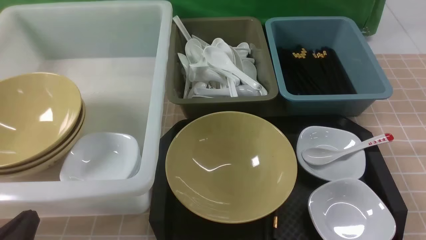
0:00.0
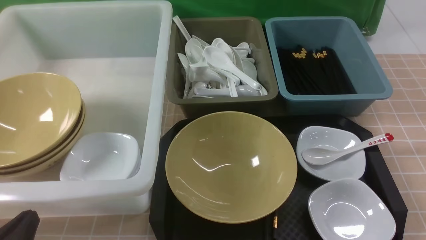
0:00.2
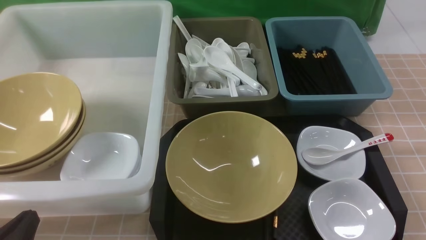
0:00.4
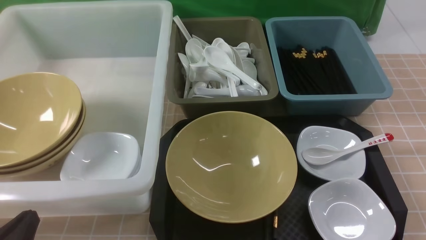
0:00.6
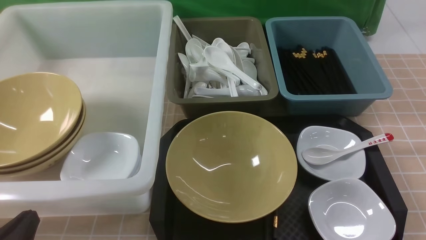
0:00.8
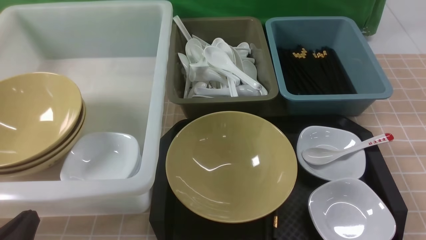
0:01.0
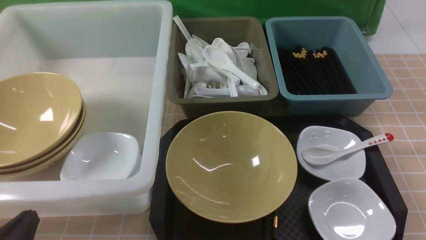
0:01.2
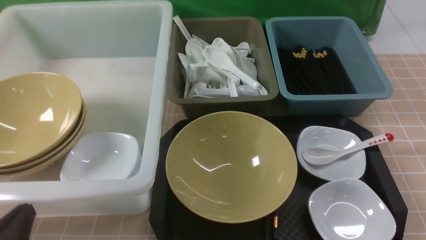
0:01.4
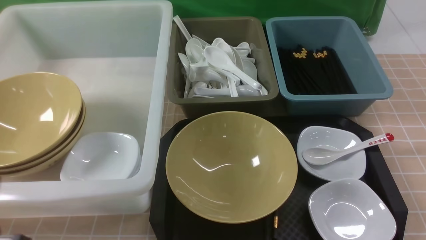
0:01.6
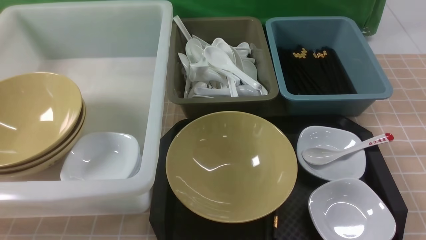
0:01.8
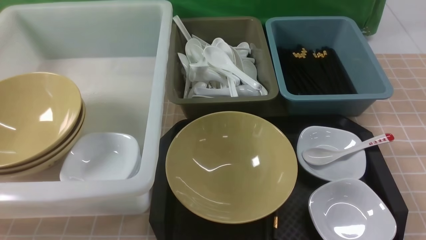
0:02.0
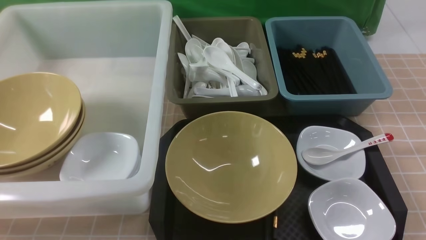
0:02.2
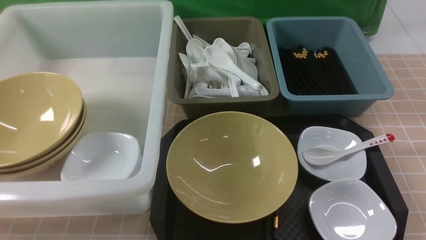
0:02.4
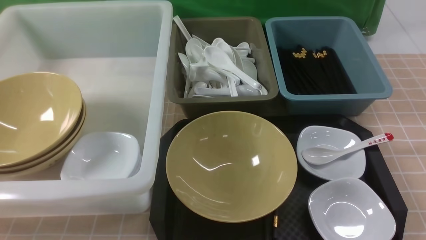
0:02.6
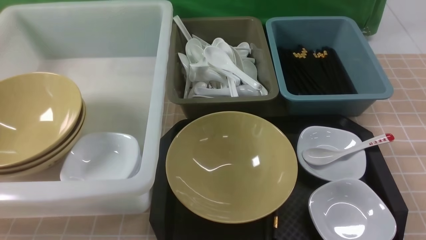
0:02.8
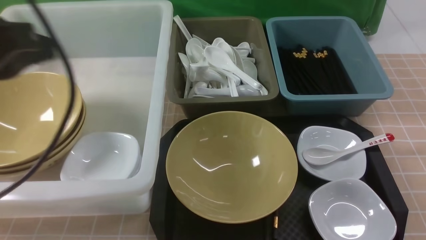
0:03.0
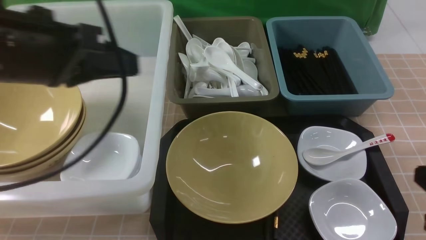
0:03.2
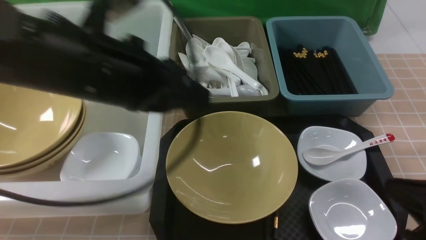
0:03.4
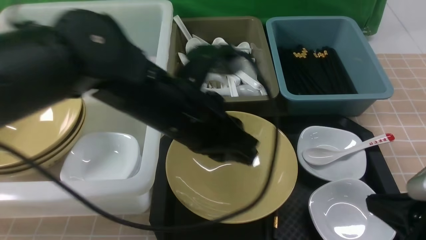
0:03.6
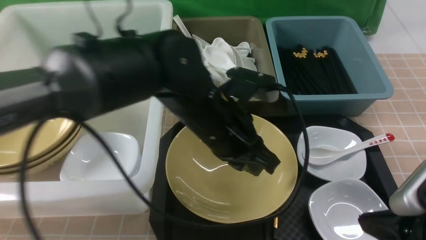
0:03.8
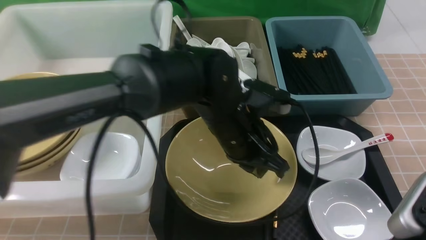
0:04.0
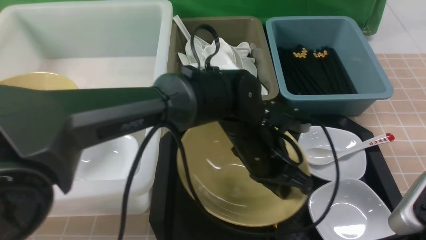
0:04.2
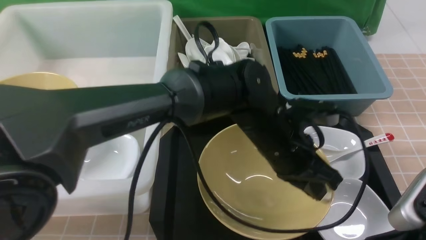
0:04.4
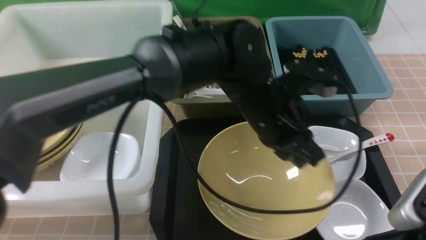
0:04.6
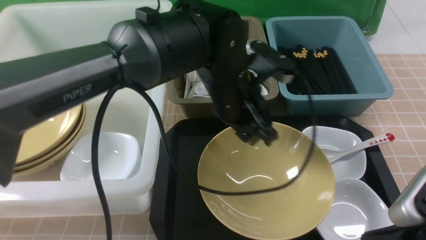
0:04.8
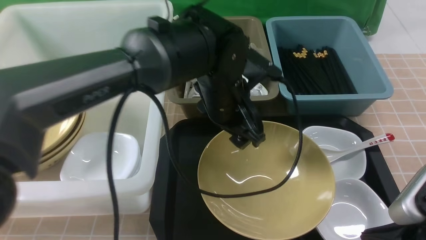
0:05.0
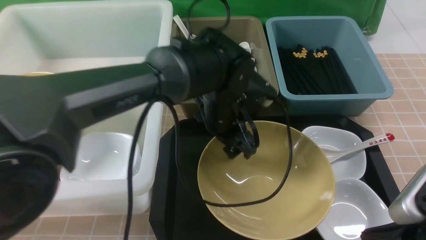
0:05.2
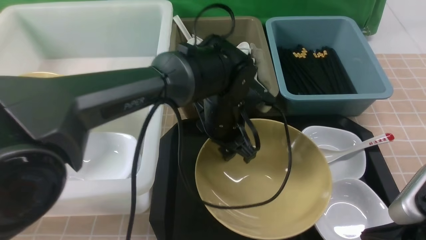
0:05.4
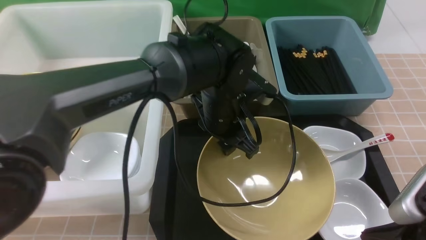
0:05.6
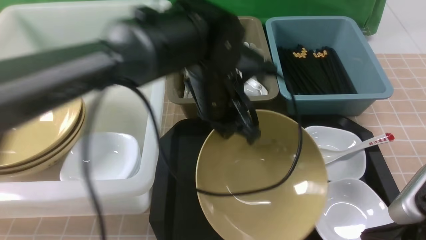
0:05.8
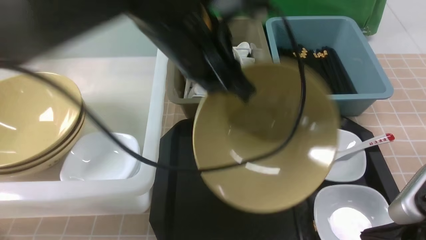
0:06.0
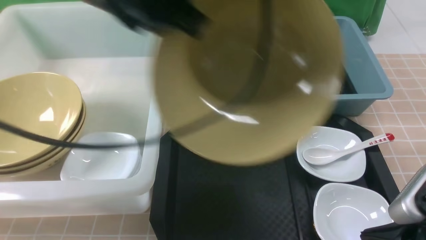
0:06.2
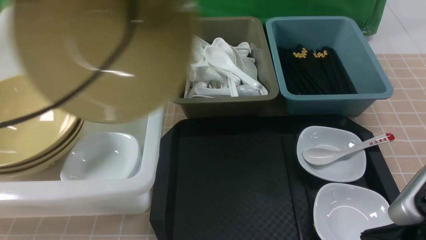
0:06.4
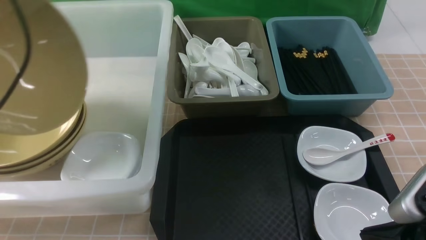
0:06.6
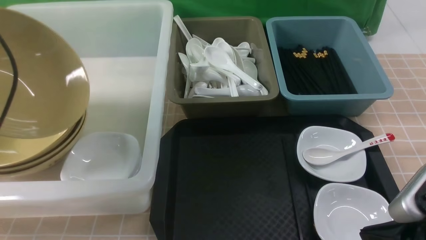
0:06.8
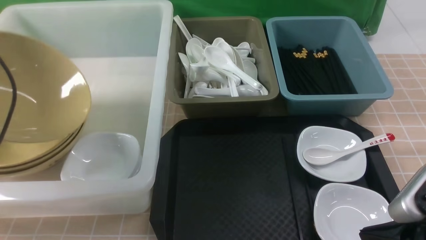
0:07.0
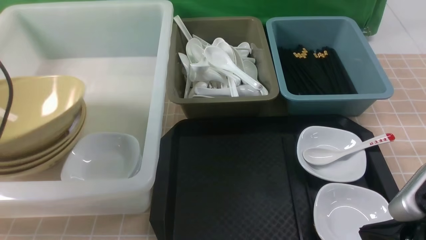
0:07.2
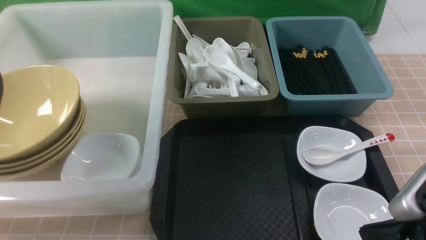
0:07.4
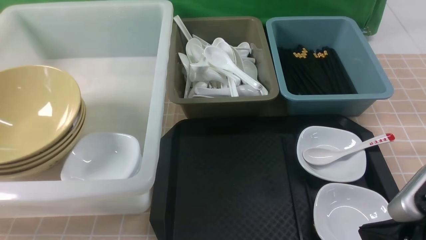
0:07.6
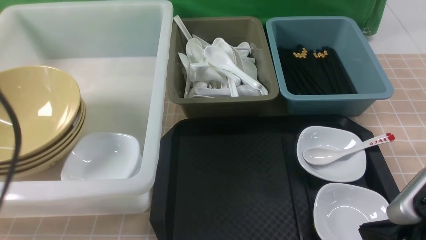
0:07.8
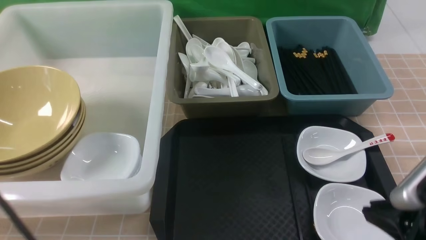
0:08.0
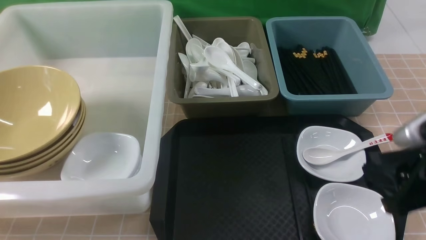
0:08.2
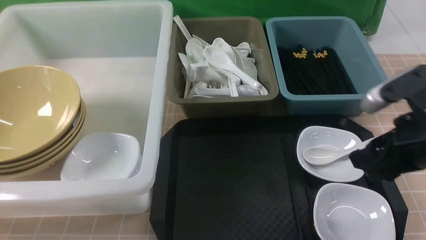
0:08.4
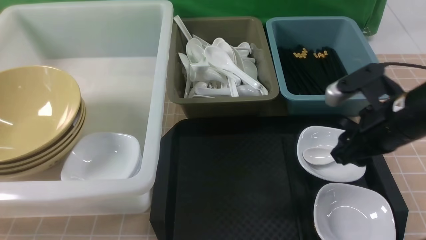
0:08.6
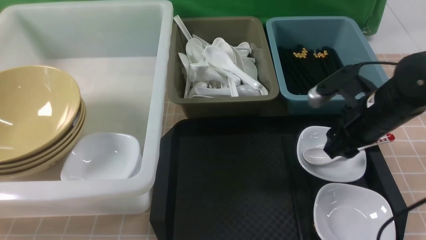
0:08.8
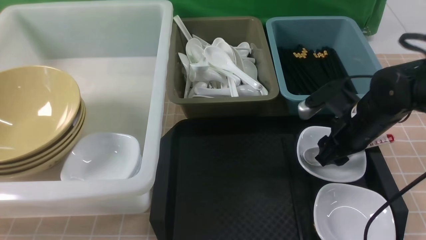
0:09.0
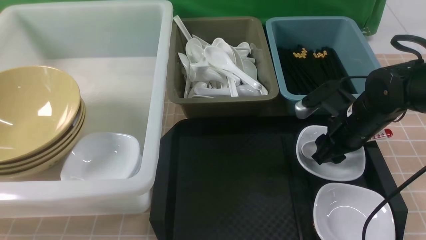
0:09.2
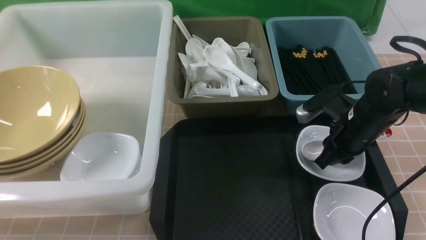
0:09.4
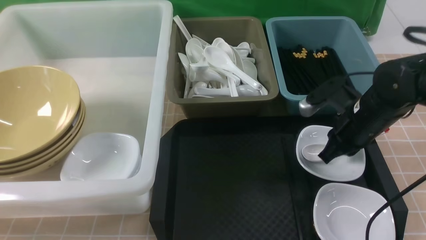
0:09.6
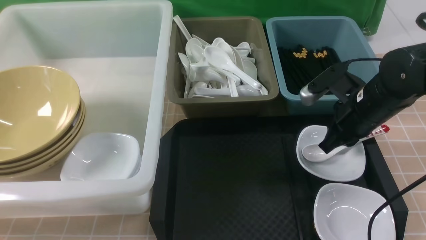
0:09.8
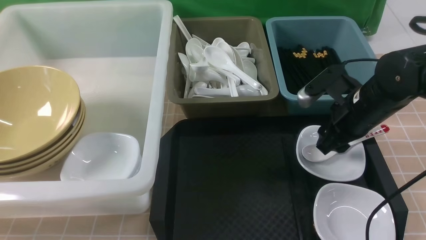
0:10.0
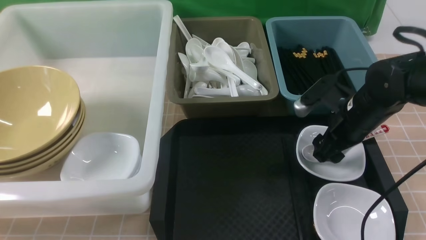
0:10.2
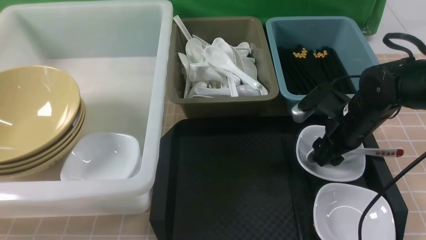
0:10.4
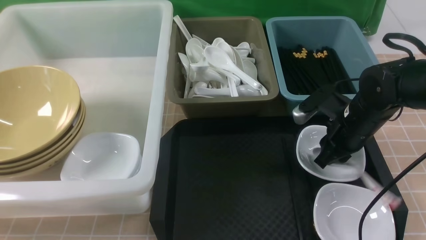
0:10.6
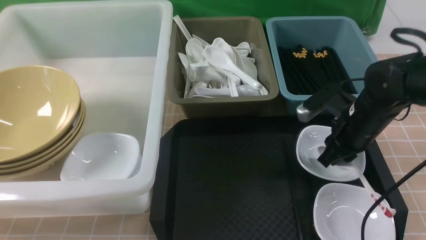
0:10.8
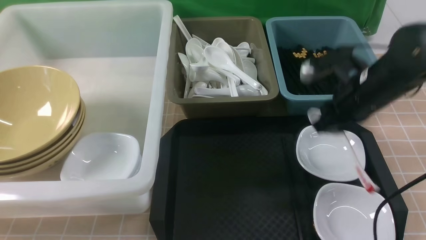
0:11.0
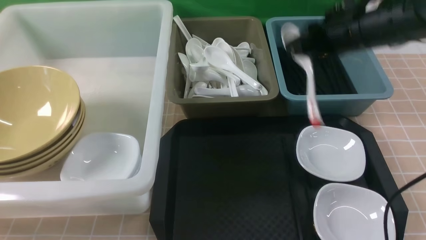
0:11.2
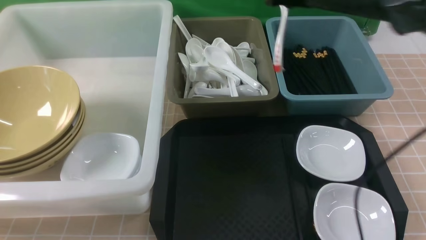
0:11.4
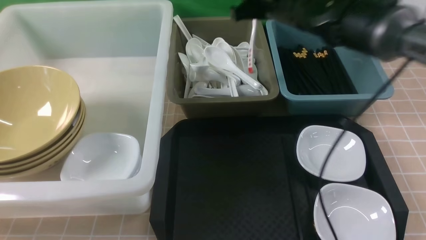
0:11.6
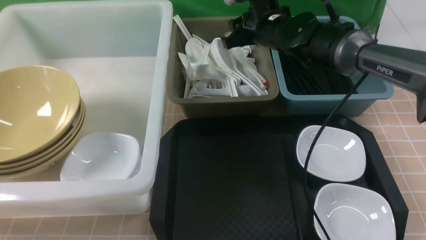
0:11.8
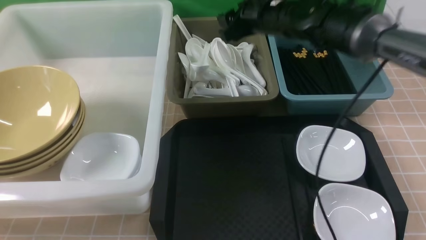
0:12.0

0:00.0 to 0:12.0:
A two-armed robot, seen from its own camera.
Task of the whole recording: on brown table put chopsticks spoon bowls plates into blue grey white boxes.
Step, 0:00.0 to 0:05.6: use the left arm to grab the yellow noodle bowl on the left.
Step, 0:05.8 to 0:07.6: use the left arm to put the noodle bowl into the large storage box on the left.
Step, 0:07.8 to 0:10.8: use the right arm to grab the soup spoon in the middle.
Step, 0:11.0 to 0:11.8: use the right arm to put the soup spoon into the small storage box in the middle.
0:01.6 to 0:03.0: The left gripper travels upward and forward by approximately 20 cm. Meanwhile the right gripper shifts some 5 cm upward, and closes its fingers.
0:03.0 to 0:04.4: The left gripper goes approximately 35 cm to the right and downward; the right gripper travels to the left by approximately 5 cm.
0:04.4 to 0:06.0: The left gripper is displaced upward and to the left by approximately 20 cm, and opens and closes again.
0:06.0 to 0:07.6: The left gripper heads to the left, covering some 25 cm, and opens.
0:07.6 to 0:09.0: The right gripper goes some 20 cm forward, and opens.
0:09.0 to 0:10.4: The right gripper closes and opens again.
0:10.4 to 0:12.0: The right gripper goes up and down, about 15 cm each way, reversing 2 times, and closes and opens again.

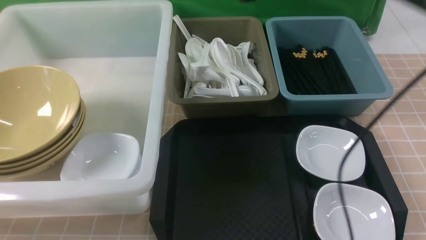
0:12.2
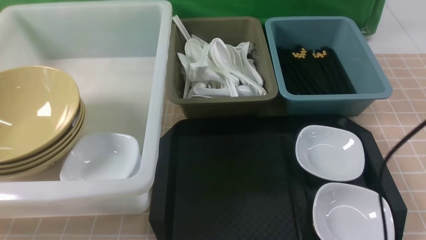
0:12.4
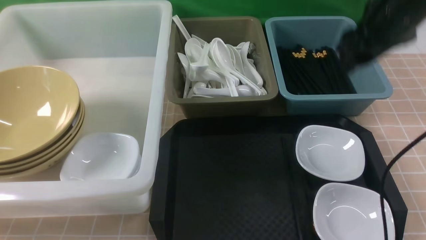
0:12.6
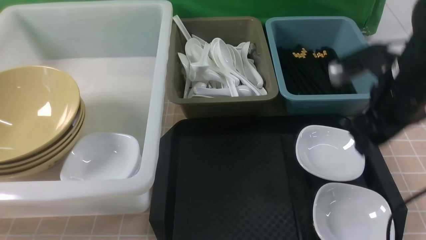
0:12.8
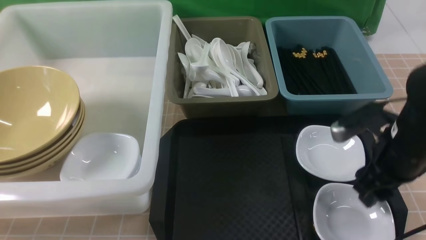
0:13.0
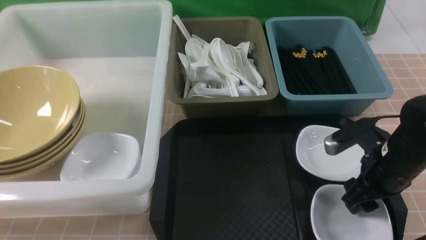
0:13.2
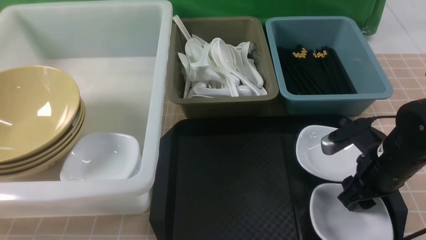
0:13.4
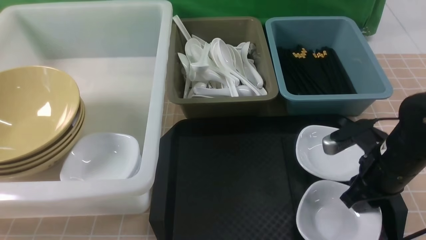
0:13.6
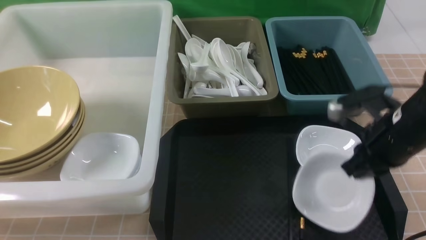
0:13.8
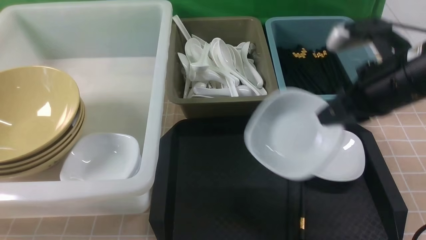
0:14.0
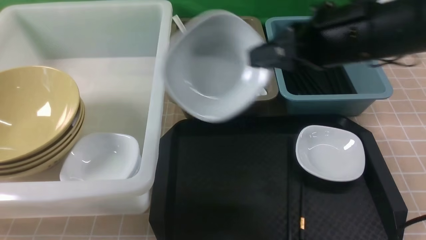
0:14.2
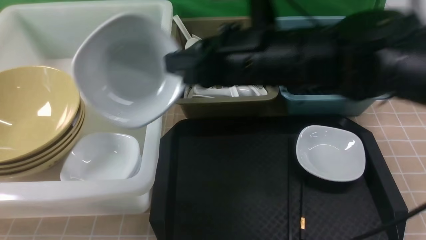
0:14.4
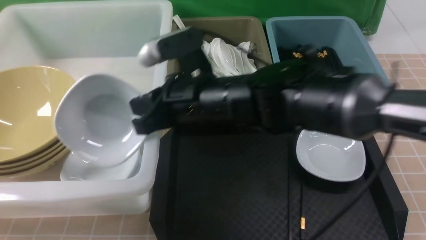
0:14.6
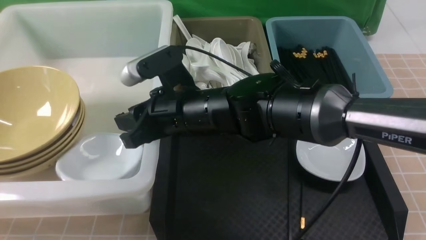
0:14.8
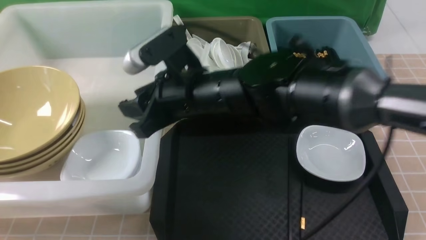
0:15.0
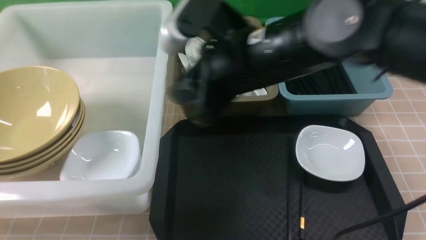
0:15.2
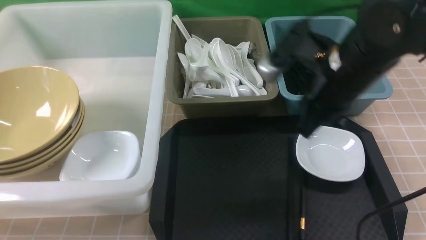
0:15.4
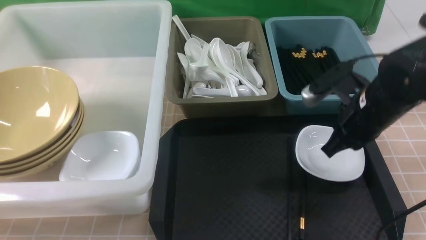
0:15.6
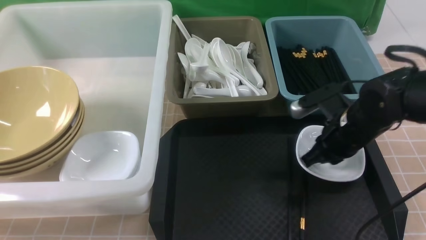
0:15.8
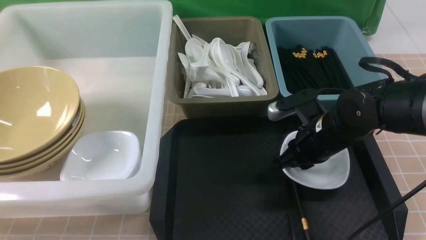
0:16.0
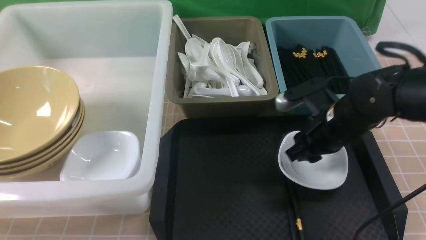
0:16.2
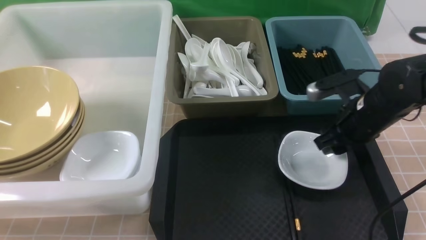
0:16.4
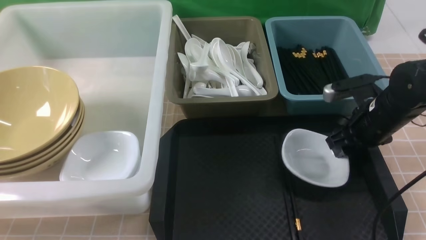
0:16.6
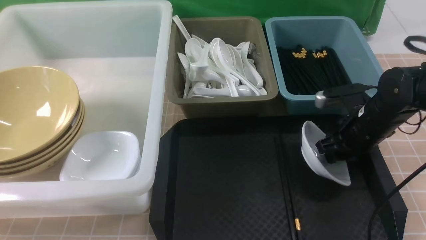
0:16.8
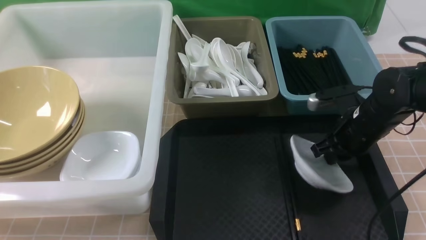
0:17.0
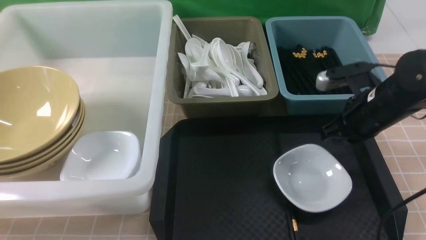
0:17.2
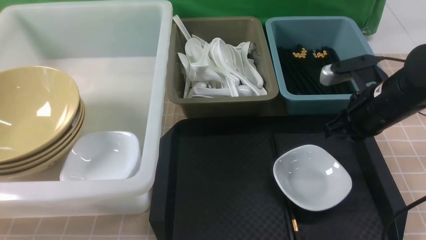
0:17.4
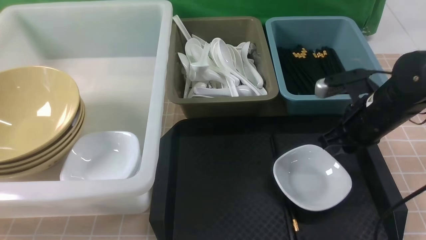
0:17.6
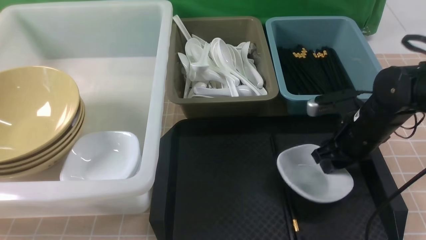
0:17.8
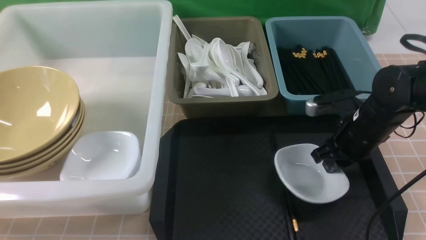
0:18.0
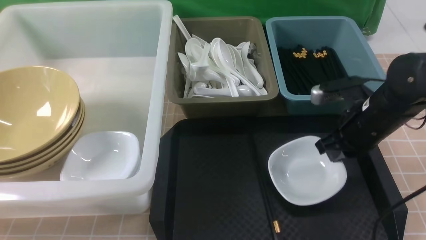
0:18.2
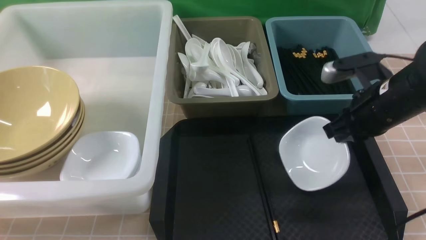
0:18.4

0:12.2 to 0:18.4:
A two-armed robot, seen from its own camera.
Task of the whole recording: on brown table put chopsticks spoon bowls plates into blue grey white boxes.
Step, 0:12.2 to 0:13.6: use the right arm to grab the plate.
Step, 0:13.8 to 0:15.0: use the right arm to put the plate into the large storage box on the left.
Step, 0:15.2 to 0:18.2: use the right arm to grab the plate.
0:12.2 to 0:13.8: The right gripper is displaced backward, downward and to the right by about 20 cm, and closes its fingers.
0:13.8 to 0:15.4: The right gripper goes to the left and returns, roughly 25 cm each way, and opens and closes again.
0:15.4 to 0:16.8: The right gripper heads downward and to the right, covering about 15 cm, and opens its fingers.
0:16.8 to 0:18.4: The right gripper shifts about 10 cm upward, and closes its fingers.
